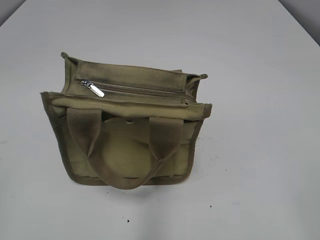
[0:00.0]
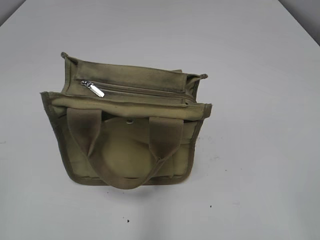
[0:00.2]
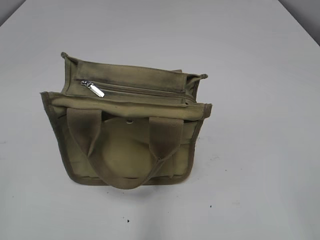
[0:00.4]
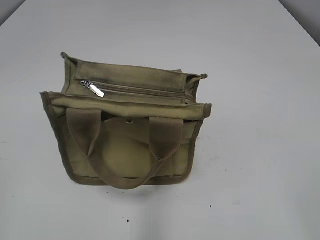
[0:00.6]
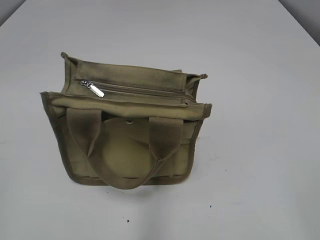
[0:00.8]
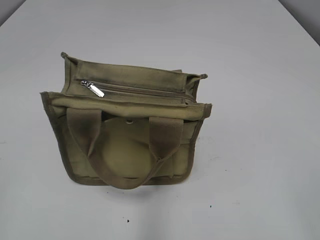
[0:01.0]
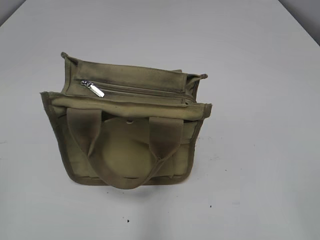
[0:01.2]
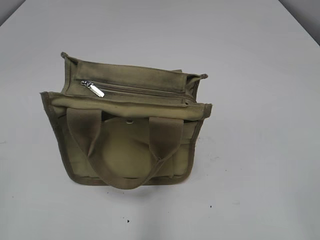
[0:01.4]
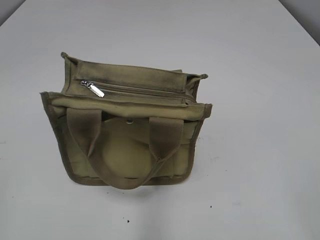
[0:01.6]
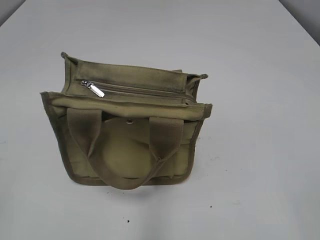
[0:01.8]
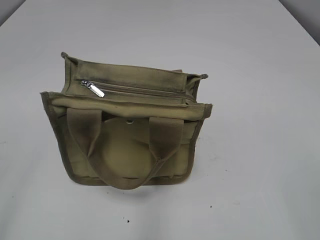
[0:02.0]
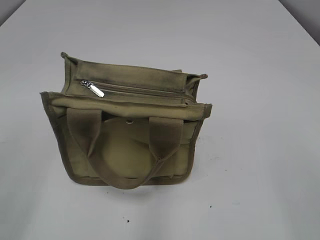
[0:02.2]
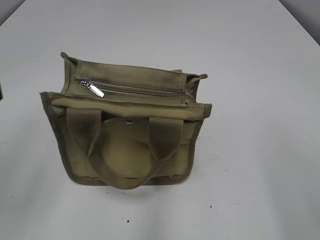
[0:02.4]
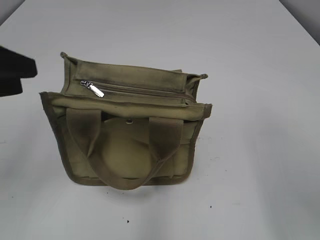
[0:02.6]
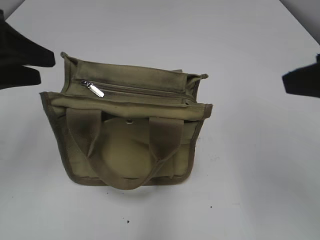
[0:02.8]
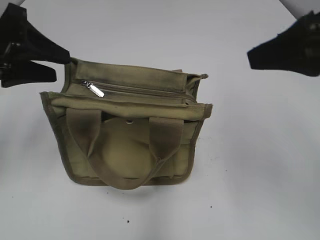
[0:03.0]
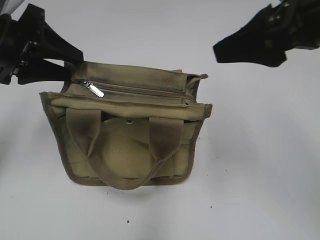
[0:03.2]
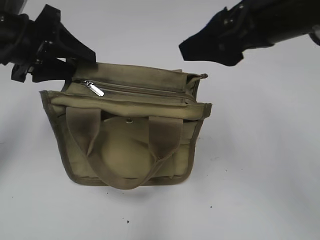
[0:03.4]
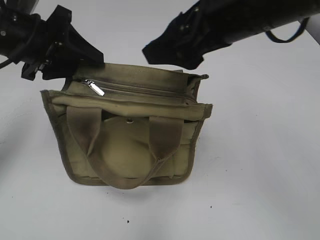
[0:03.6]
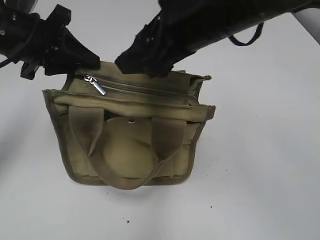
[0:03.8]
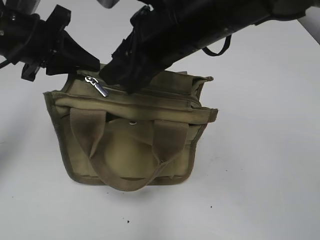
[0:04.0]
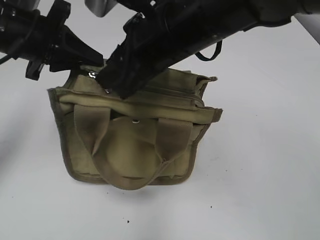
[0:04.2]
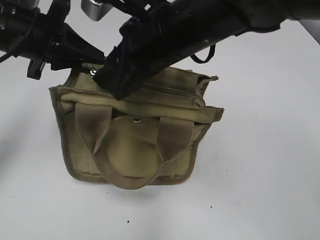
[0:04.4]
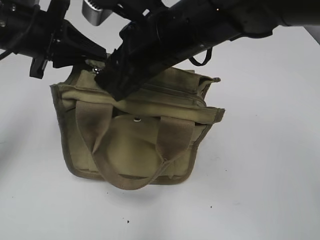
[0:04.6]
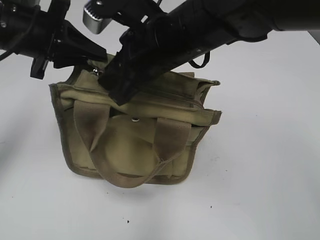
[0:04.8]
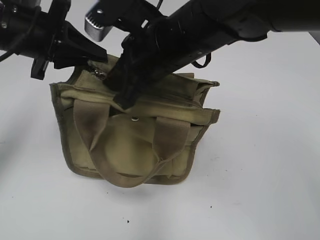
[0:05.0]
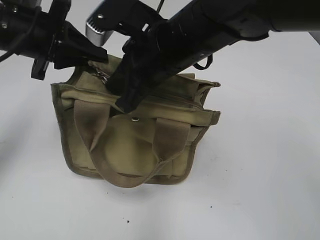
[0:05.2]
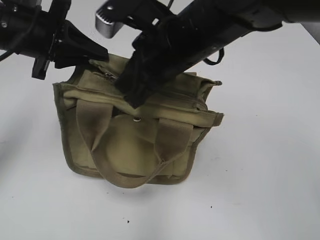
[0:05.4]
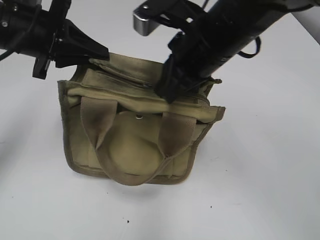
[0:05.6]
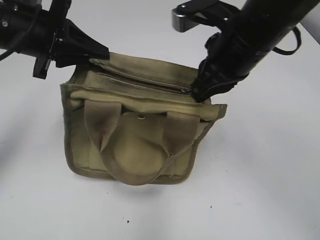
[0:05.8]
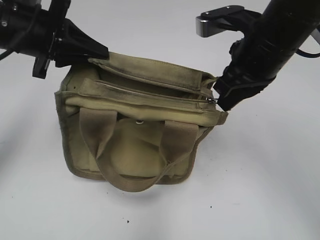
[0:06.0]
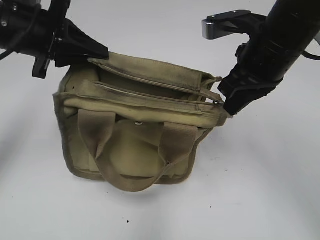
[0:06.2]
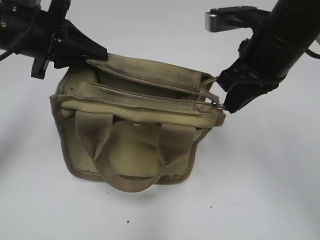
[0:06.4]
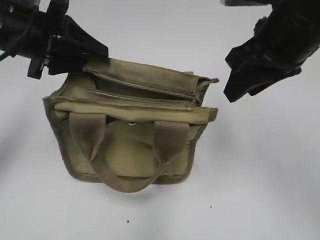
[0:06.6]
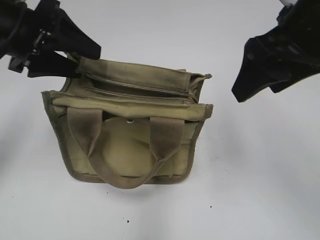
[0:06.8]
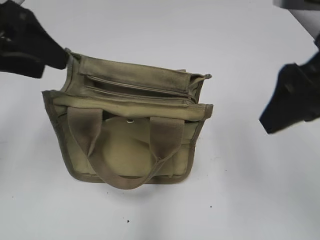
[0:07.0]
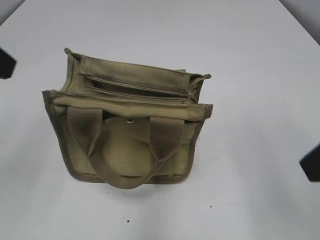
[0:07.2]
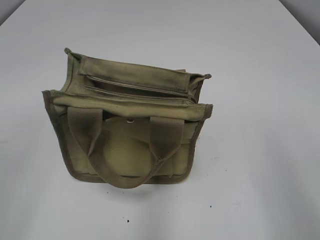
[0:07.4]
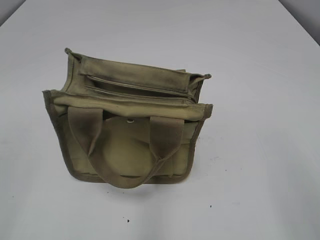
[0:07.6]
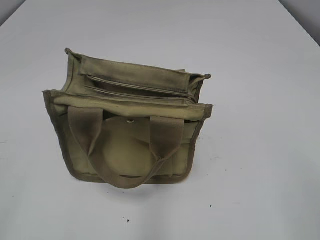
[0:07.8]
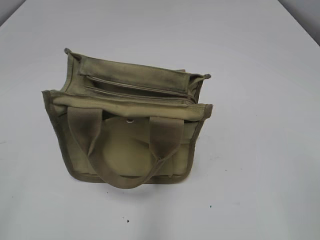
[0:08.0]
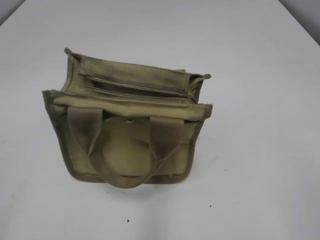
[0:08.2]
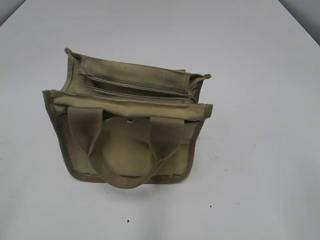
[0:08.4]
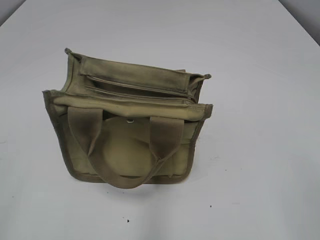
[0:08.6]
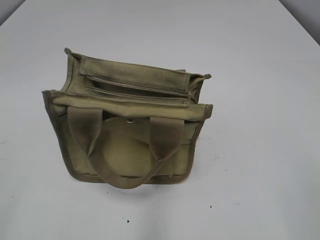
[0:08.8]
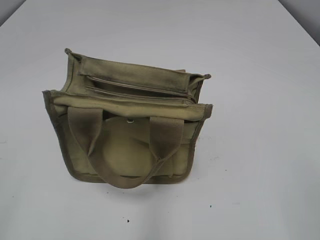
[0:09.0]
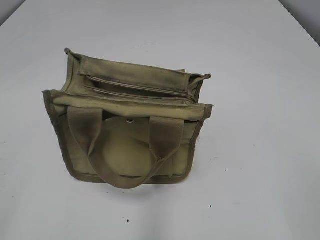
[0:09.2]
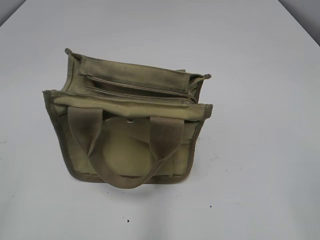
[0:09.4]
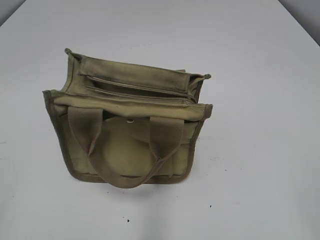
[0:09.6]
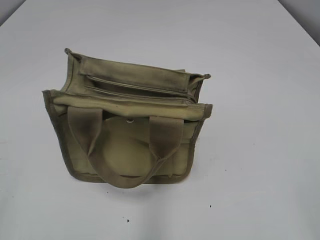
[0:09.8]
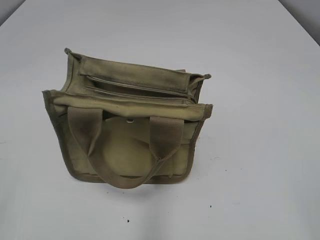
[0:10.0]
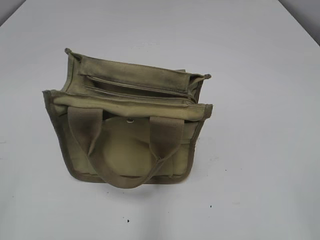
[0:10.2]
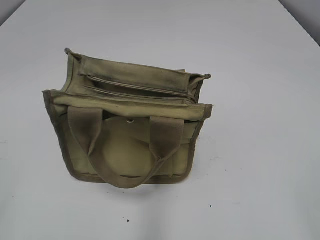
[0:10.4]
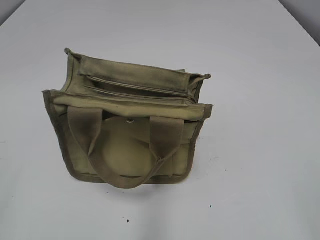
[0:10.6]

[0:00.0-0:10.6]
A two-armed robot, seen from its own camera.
Step, 0:00.0 to 0:06.4: Pull open the zipper with your right hand.
0:01.6 to 0:03.0: The two grippers go about 20 cm forward.
0:03.0 to 0:04.6: The left gripper travels forward and to the right by approximately 10 cm, and closes up. The right gripper moves to the left and forward, roughly 25 cm, and closes.
0:04.6 to 0:06.0: The right gripper is displaced to the right by roughly 10 cm, and closes.
0:06.0 to 0:07.6: The left gripper heads backward and to the left, covering about 25 cm, and opens. Meanwhile the right gripper goes approximately 25 cm backward and to the right, and opens.

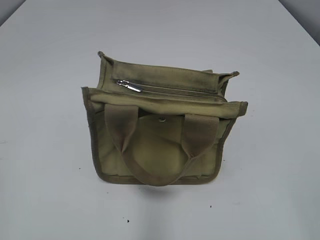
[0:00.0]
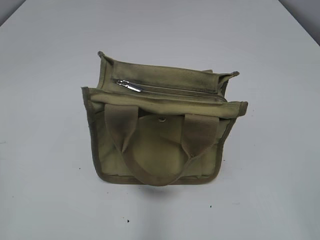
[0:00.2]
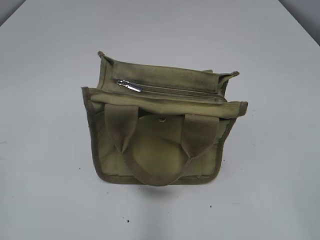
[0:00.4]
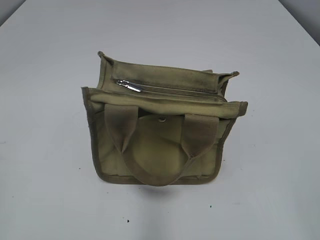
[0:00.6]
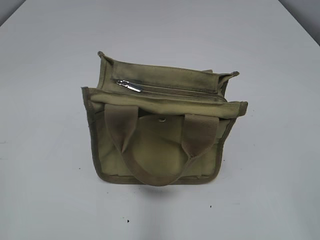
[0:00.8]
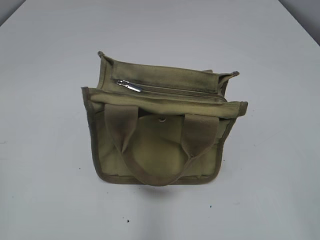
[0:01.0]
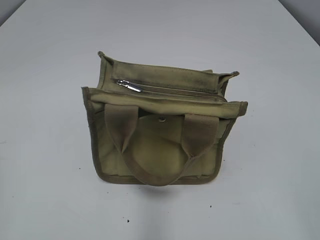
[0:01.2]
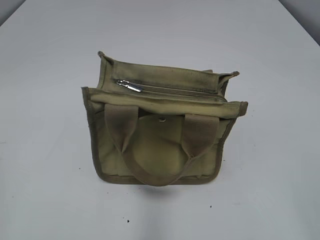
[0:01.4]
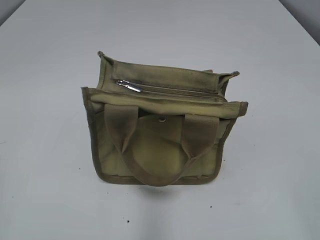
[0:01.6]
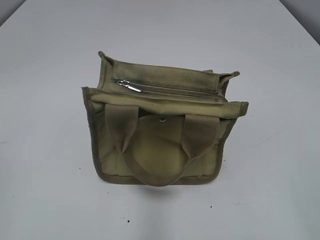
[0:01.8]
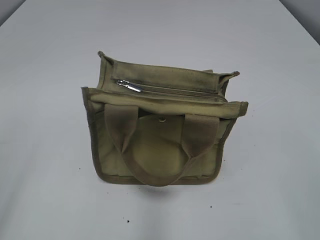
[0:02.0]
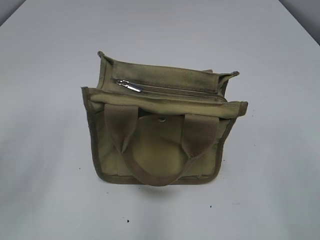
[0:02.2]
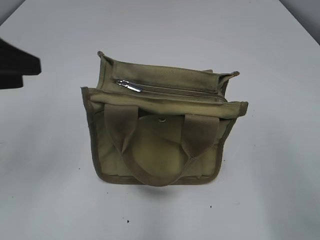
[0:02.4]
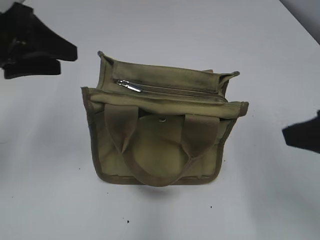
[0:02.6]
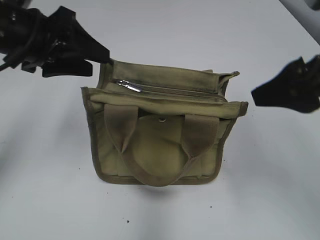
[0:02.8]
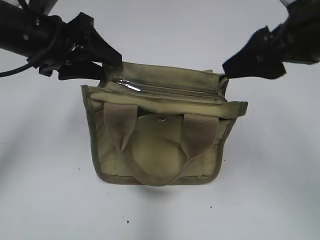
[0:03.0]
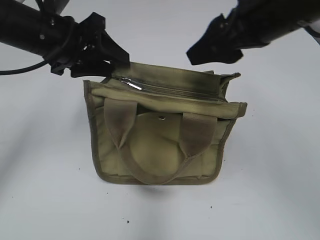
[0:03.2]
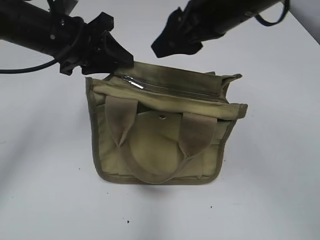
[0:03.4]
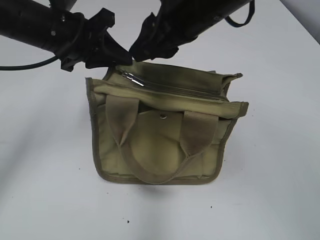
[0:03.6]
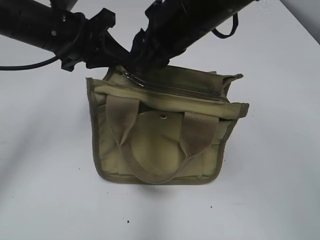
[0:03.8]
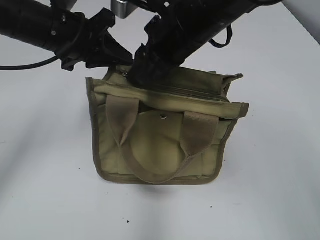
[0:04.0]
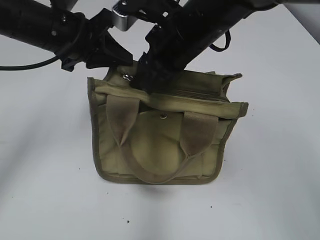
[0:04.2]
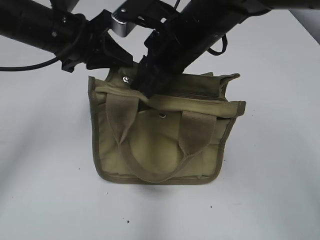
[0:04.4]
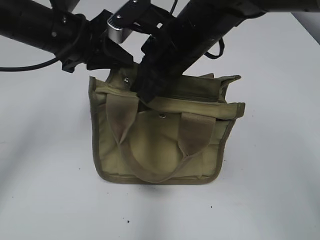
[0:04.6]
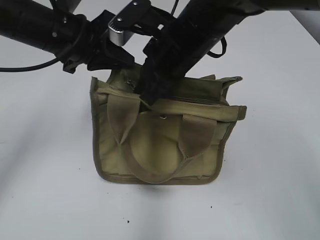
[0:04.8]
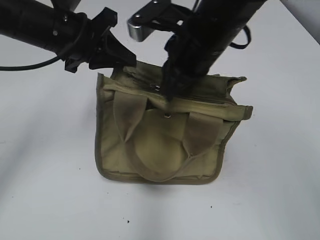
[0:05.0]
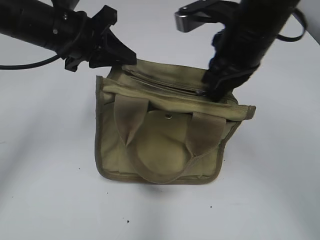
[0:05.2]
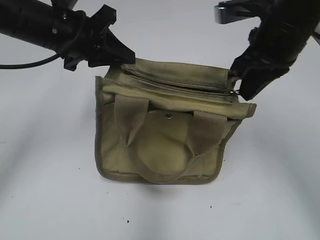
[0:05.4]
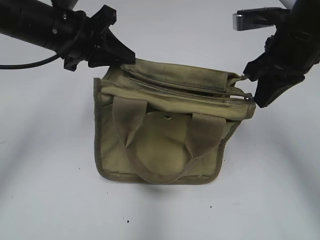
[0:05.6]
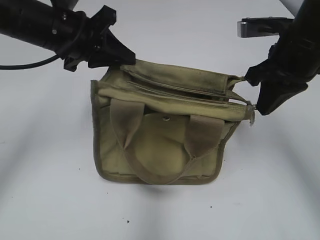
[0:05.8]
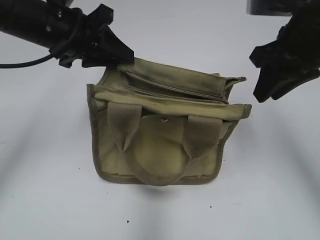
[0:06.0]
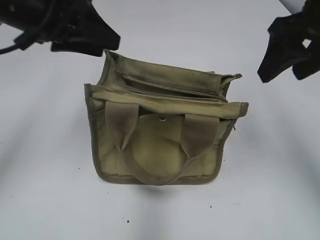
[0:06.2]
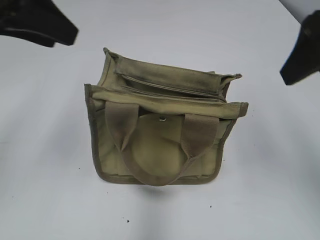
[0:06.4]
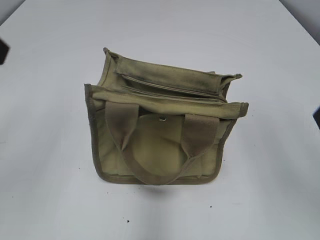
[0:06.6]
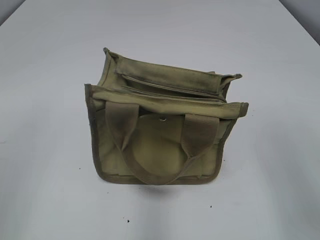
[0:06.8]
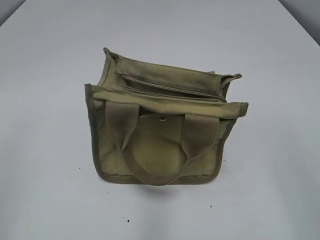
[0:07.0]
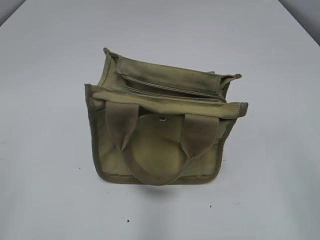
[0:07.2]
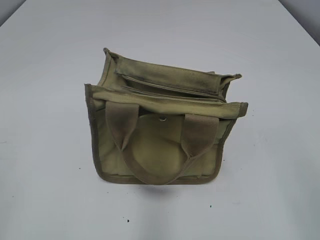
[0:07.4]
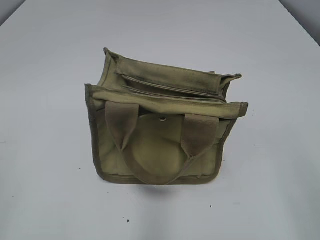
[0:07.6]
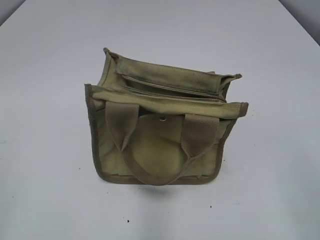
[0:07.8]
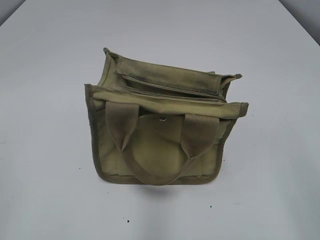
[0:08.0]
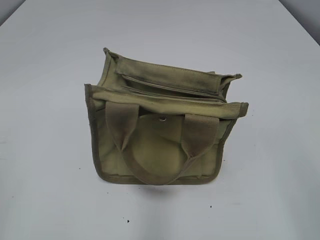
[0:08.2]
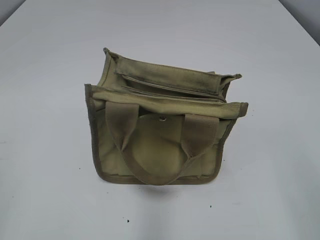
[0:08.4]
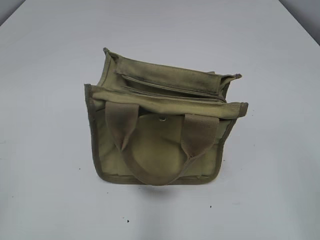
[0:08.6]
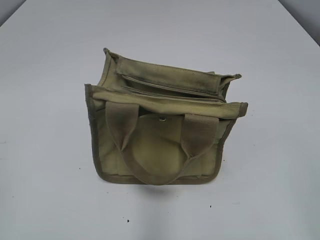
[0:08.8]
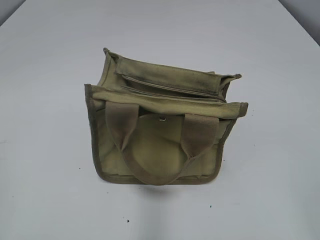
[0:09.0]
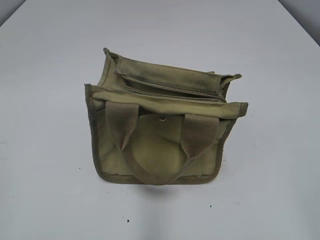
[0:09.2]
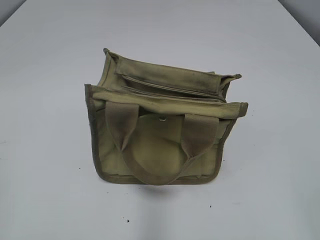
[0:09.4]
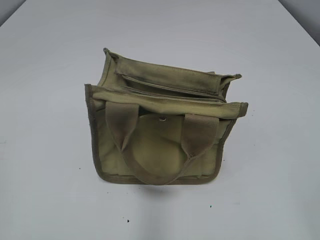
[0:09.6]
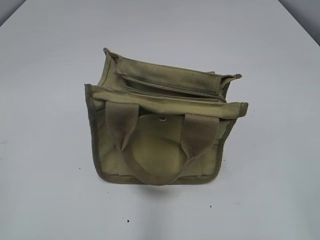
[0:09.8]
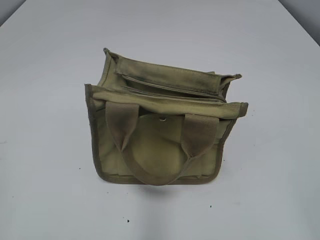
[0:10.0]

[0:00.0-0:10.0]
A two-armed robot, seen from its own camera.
Step, 0:00.0 to 0:05.8: Pull open the zipper with your right hand.
Step, 0:06.0 to 0:06.2: Hold the bag with your left hand.
0:01.4 to 0:02.8: The right gripper travels forward by roughly 20 cm. Meanwhile the left gripper heads forward and to the right, covering roughly 30 cm, and opens up.
0:02.8 to 0:04.2: The left gripper moves to the right, approximately 5 cm, and closes up; the right gripper heads to the left and forward, covering roughly 20 cm, and closes up.
0:04.2 to 0:05.8: The right gripper shifts about 15 cm to the right, and closes up.
0:05.8 to 0:07.2: The right gripper travels backward by some 25 cm, and opens up. The left gripper is displaced backward and to the left by about 35 cm, and opens.
